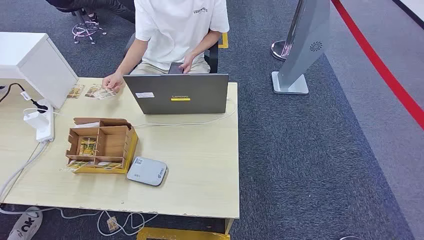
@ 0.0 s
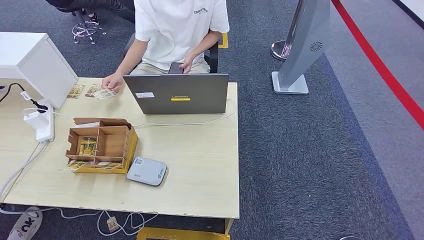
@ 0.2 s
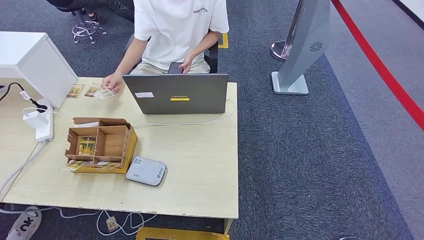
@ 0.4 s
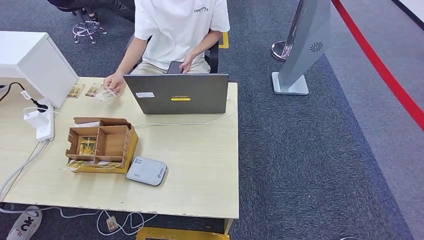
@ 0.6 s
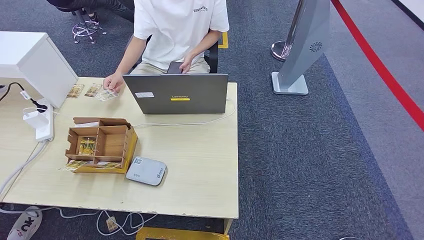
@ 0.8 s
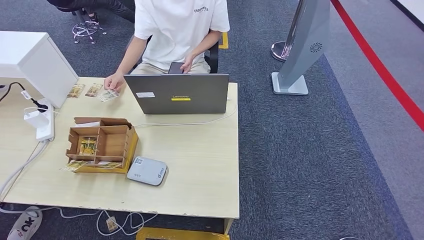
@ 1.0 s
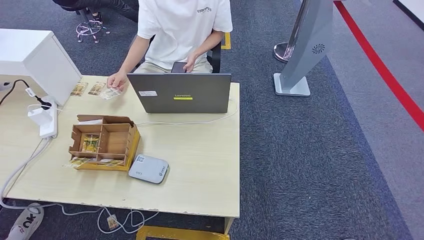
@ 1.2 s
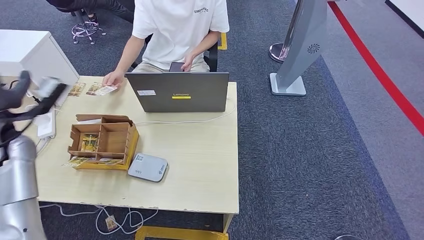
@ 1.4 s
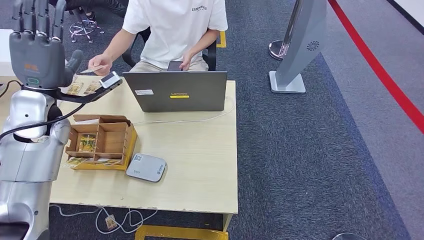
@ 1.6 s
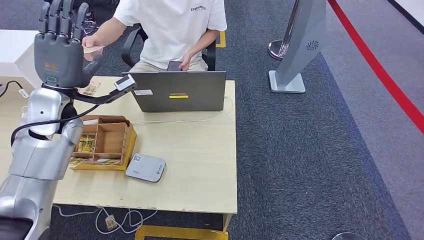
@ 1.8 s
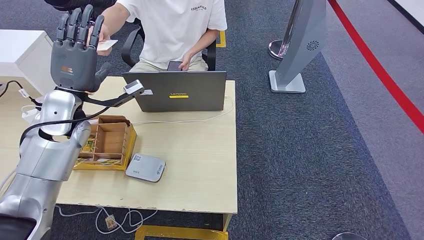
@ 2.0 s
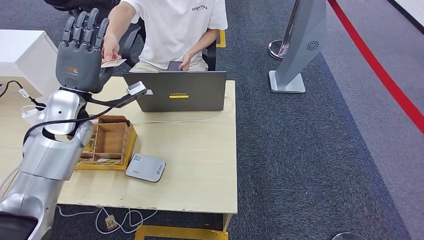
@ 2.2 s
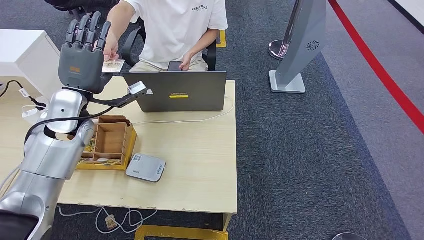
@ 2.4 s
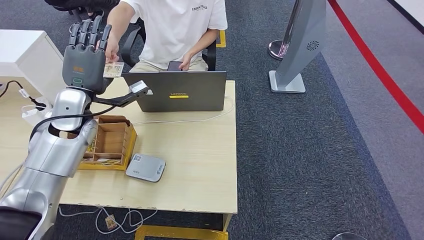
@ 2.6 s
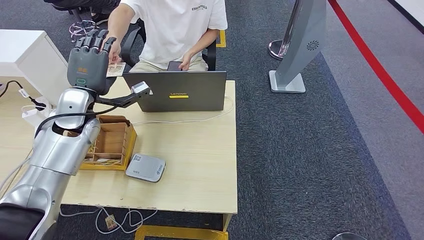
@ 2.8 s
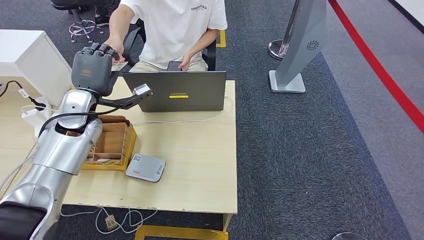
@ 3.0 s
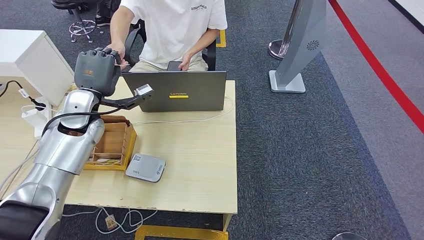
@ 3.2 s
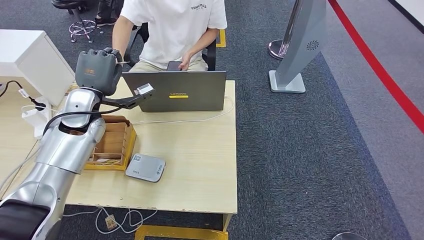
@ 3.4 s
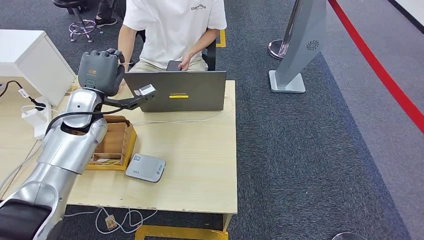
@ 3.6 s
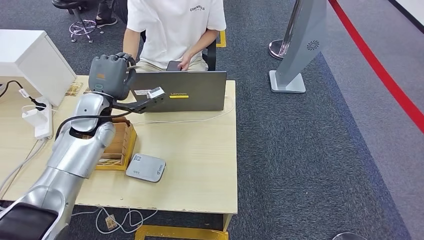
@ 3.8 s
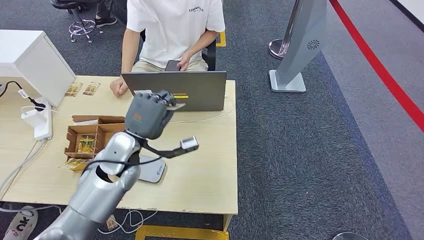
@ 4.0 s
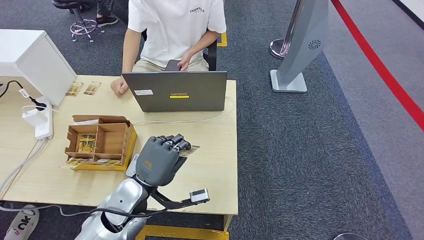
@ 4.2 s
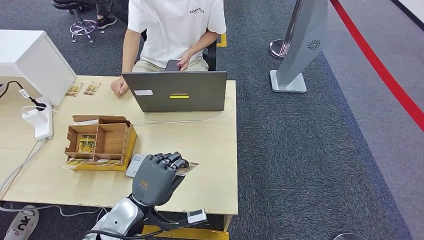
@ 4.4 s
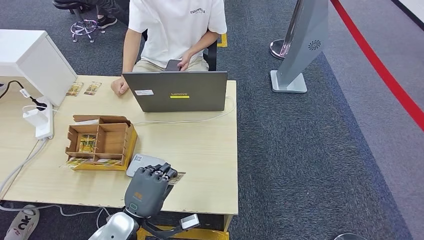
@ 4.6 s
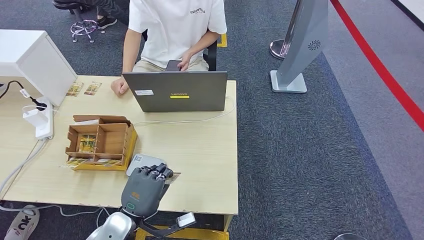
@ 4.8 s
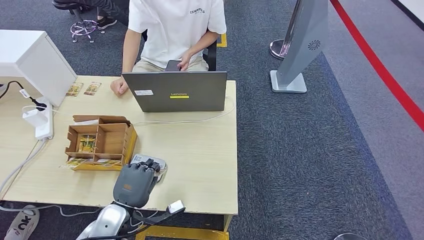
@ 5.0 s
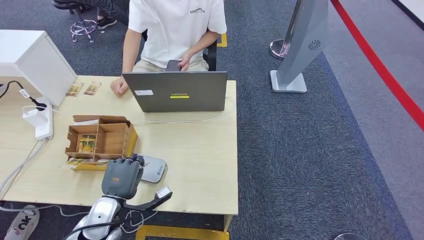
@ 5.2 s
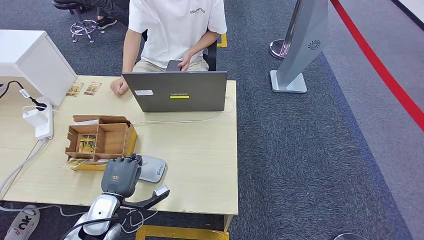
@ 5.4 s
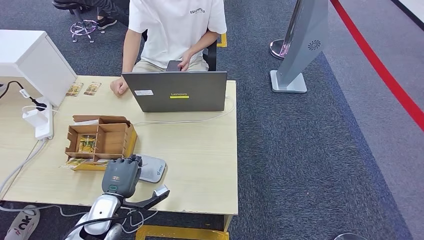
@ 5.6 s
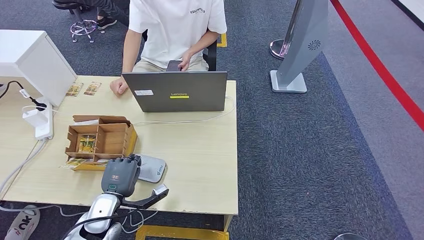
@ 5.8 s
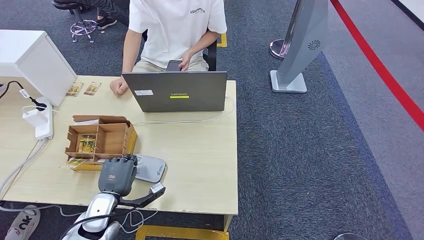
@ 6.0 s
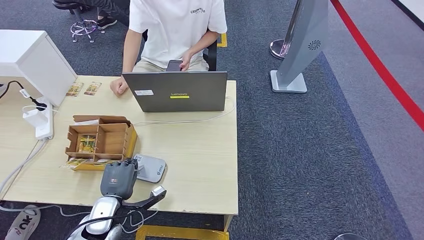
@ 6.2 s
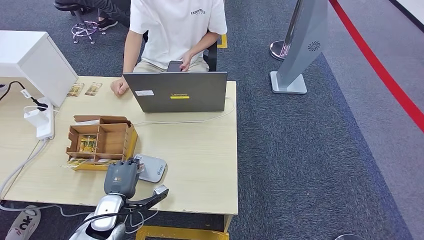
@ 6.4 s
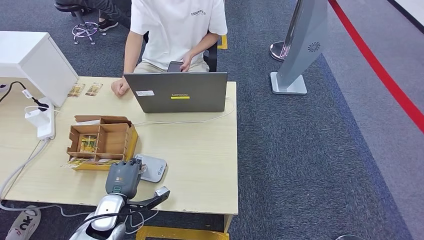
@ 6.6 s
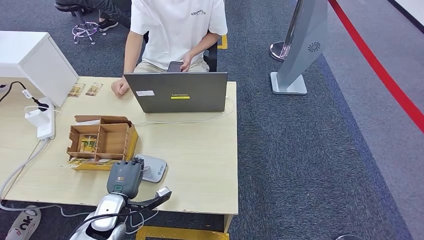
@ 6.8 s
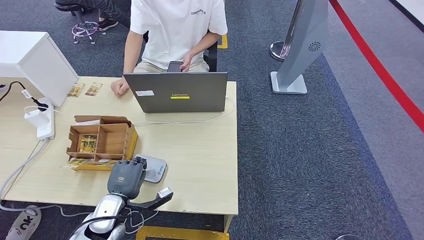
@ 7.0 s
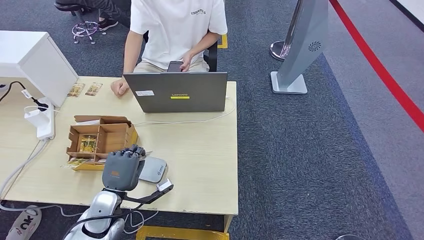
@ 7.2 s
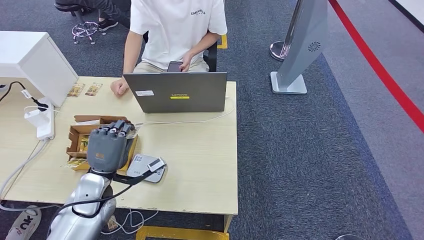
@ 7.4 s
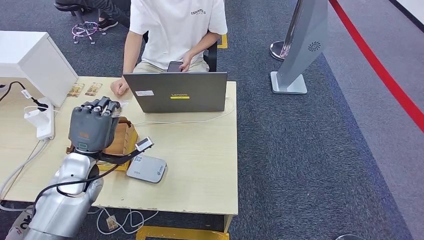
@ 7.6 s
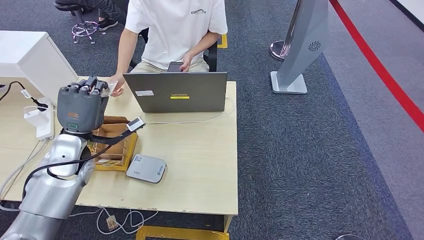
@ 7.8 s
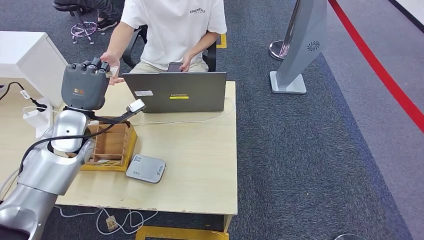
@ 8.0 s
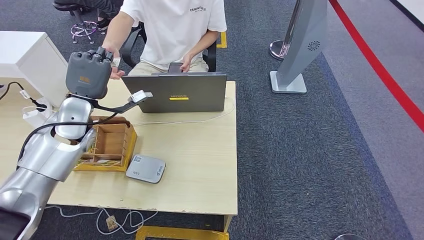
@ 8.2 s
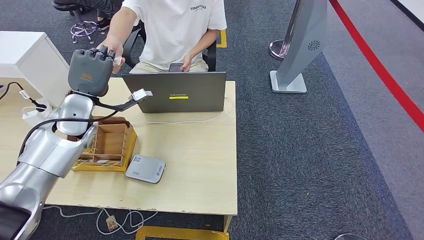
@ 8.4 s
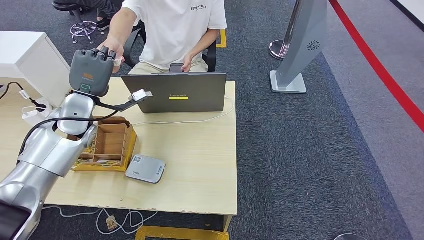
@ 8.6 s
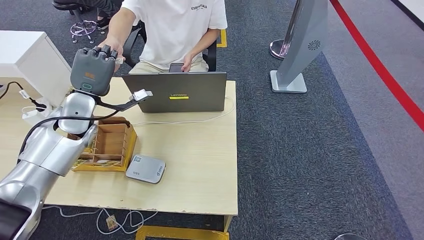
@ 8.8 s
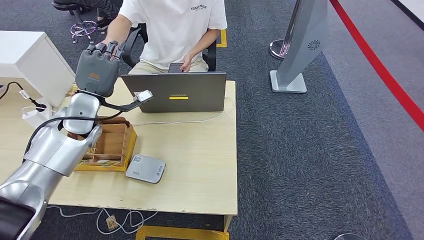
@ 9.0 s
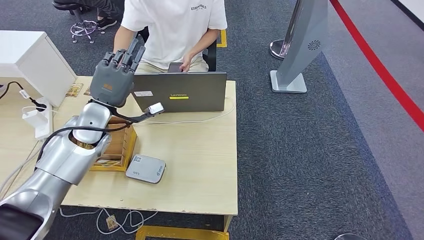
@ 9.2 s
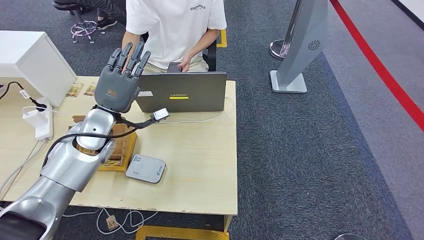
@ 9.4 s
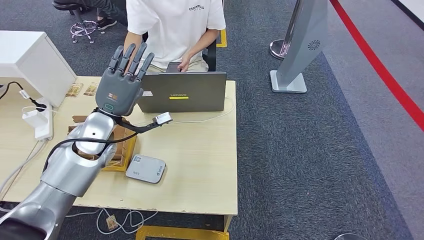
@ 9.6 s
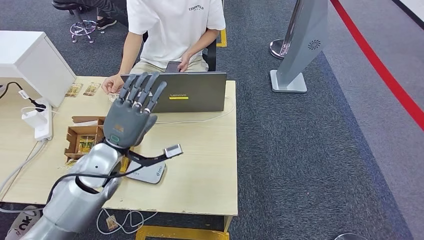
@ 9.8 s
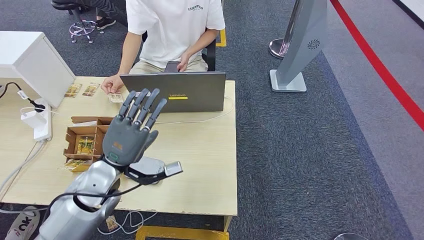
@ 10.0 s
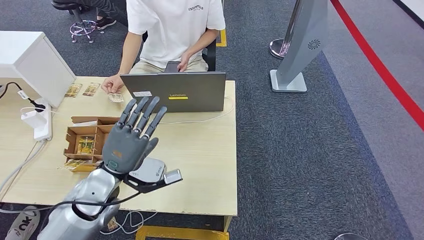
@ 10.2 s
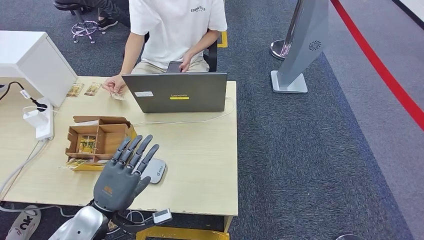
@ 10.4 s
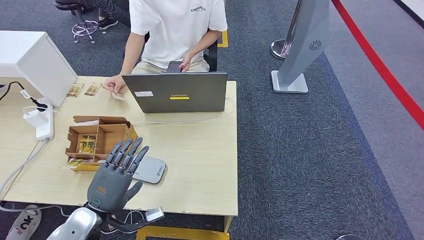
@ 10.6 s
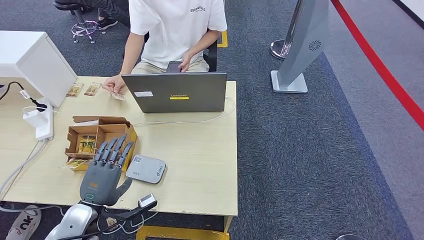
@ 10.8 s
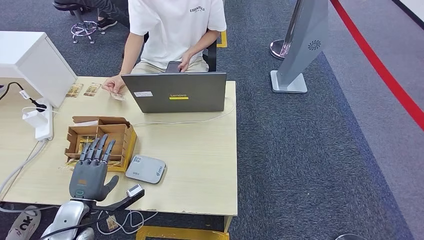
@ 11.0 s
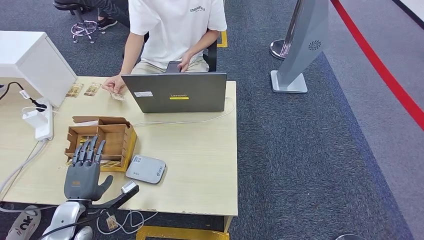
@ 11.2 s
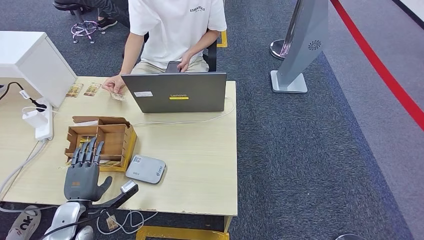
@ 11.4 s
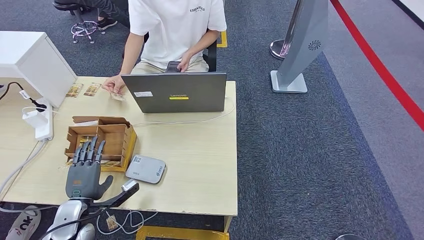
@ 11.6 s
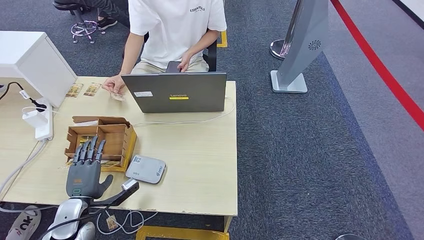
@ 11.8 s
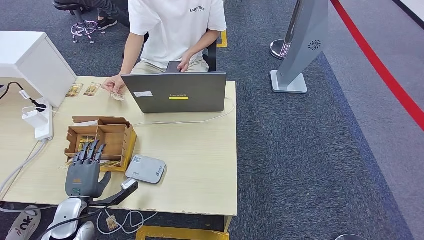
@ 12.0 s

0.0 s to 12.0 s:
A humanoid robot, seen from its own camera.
Step, 0.0 to 3.8 s: Take the ID card from the person's hand.
Step, 4.0 to 5.4 s: Place the ID card on the card reader.
Step, 5.6 to 9.2 s: Hand the ID card to the person.
1.6 to 3.0 s: The left hand shifts about 5 cm to the right and forward.
3.0 to 4.4 s: The left hand goes roughly 25 cm backward, downward and to the right.
4.4 to 6.0 s: The left hand travels to the left and downward by some 15 cm.
6.0 to 7.6 s: The left hand travels upward and forward by about 15 cm.
7.6 to 9.0 s: The left hand travels forward and upward by about 15 cm.
9.0 to 10.4 s: The left hand shifts some 20 cm backward and downward.
10.4 to 12.0 s: The left hand moves to the left and downward, some 15 cm.

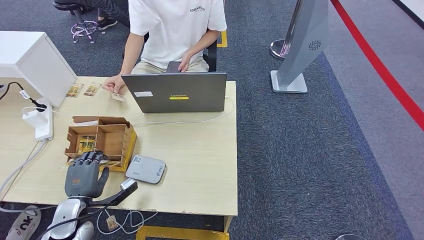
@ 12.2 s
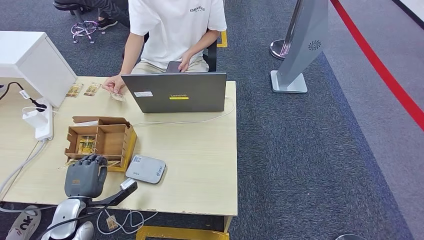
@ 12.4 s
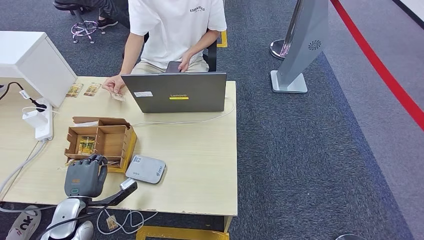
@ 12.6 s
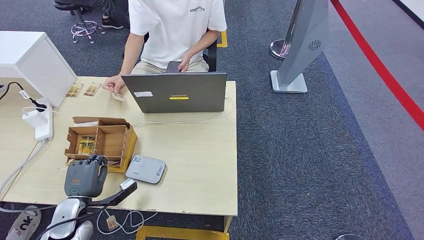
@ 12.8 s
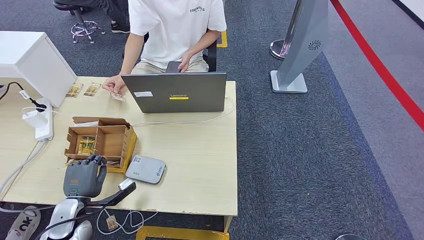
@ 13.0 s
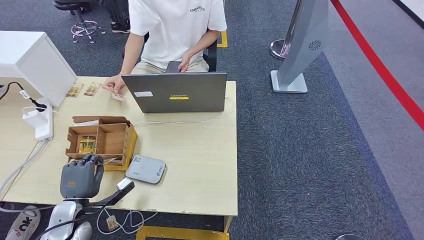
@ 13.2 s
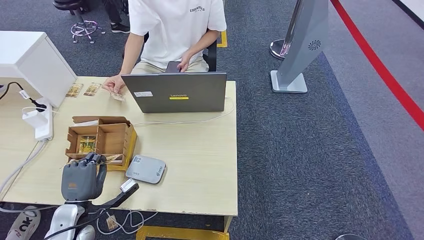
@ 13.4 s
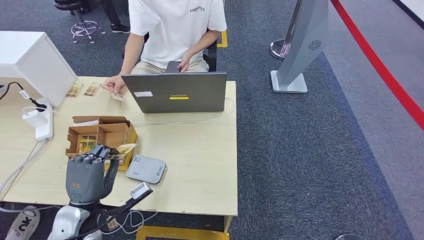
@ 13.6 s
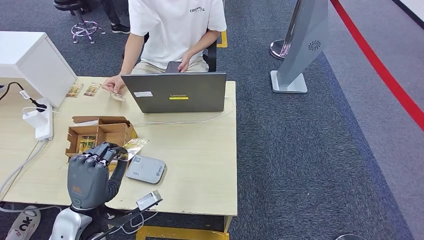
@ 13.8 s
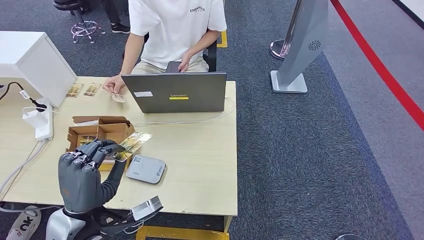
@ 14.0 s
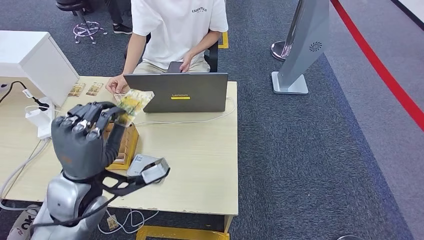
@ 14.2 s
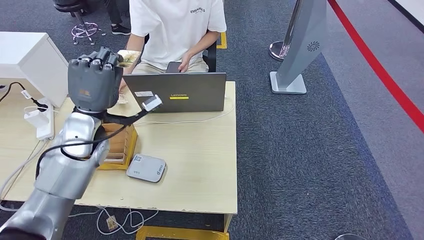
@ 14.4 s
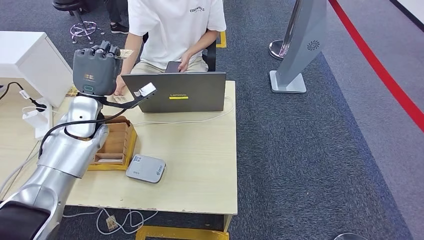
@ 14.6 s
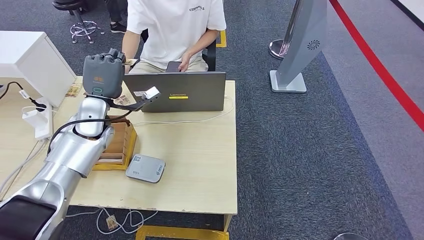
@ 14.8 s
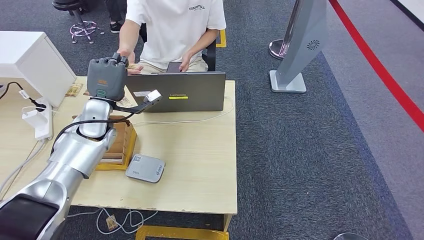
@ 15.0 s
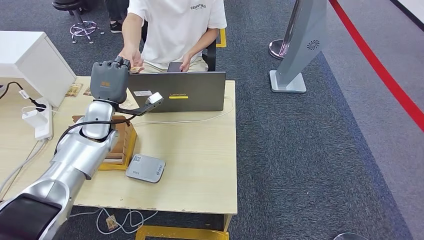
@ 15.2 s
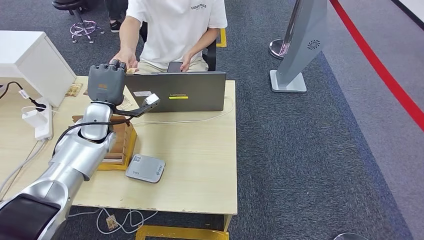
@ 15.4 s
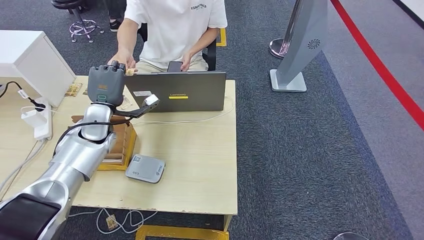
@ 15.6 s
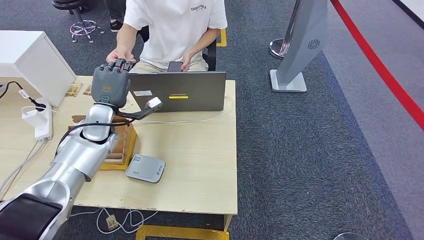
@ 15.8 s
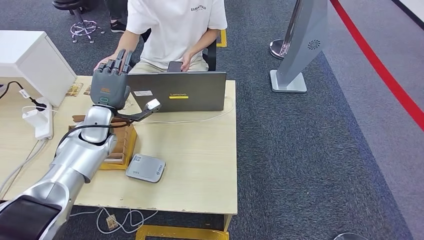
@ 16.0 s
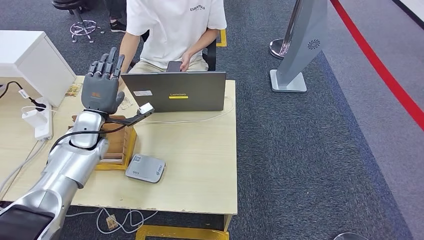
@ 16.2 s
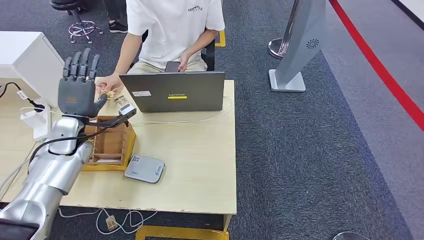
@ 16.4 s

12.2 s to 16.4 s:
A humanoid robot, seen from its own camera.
Step, 13.8 to 16.2 s: Hand the room key to the person.
12.2 to 13.6 s: The left hand is displaced upward and to the right by approximately 10 cm.
13.6 to 15.0 s: The left hand travels forward and upward by approximately 25 cm.
15.0 to 16.4 s: The left hand shifts roughly 10 cm to the left.
